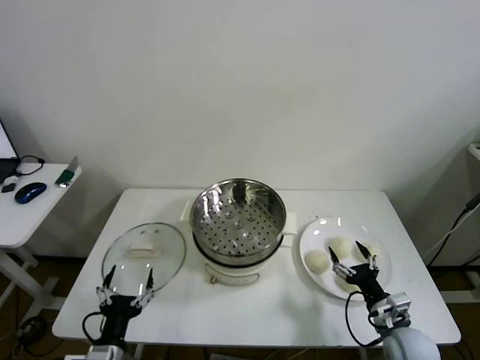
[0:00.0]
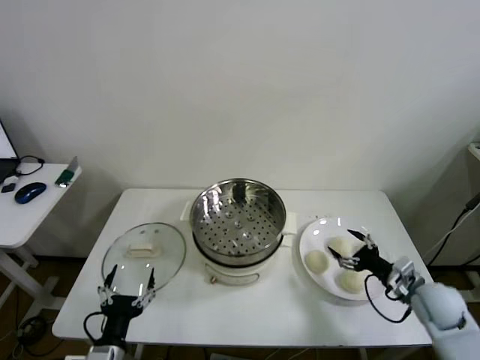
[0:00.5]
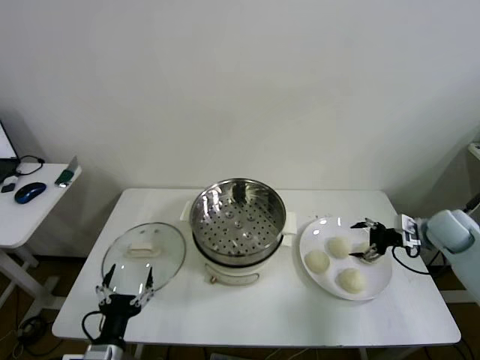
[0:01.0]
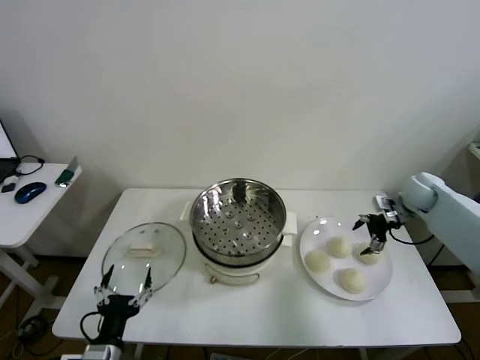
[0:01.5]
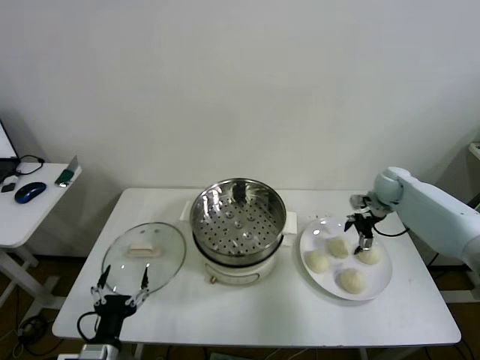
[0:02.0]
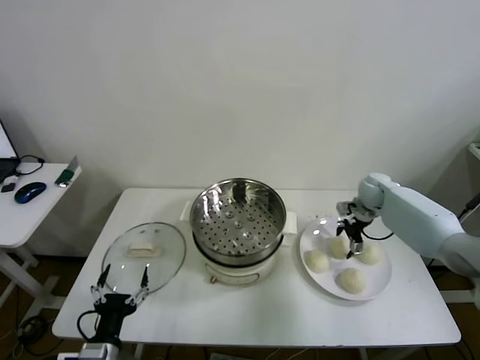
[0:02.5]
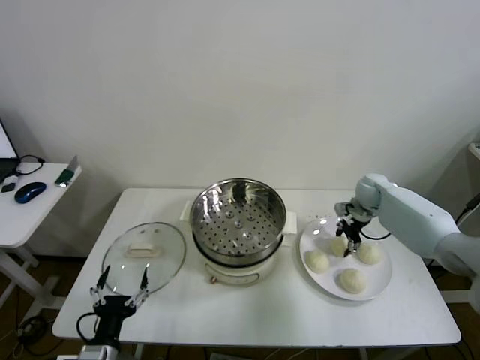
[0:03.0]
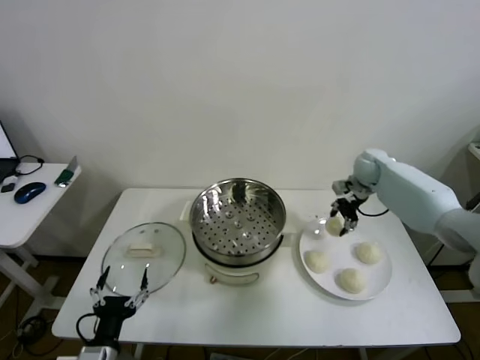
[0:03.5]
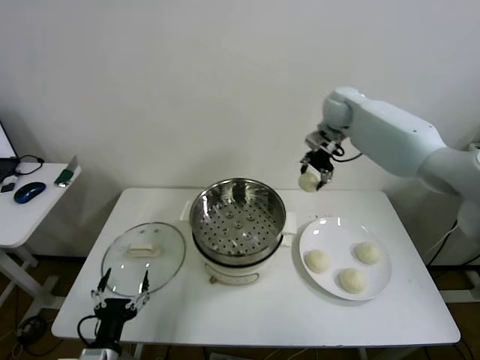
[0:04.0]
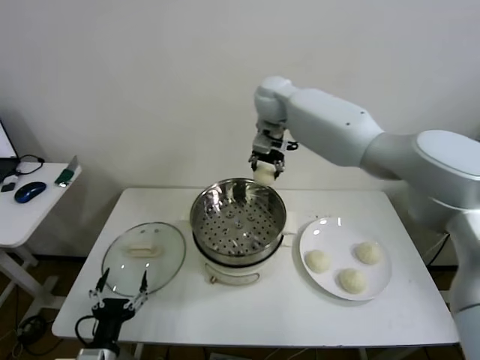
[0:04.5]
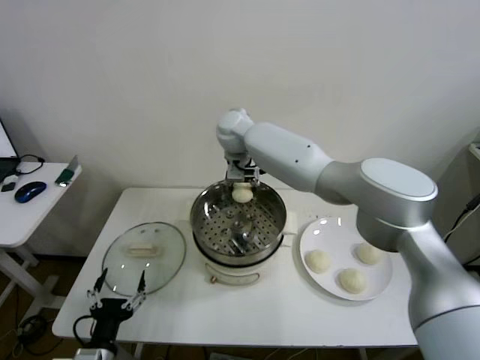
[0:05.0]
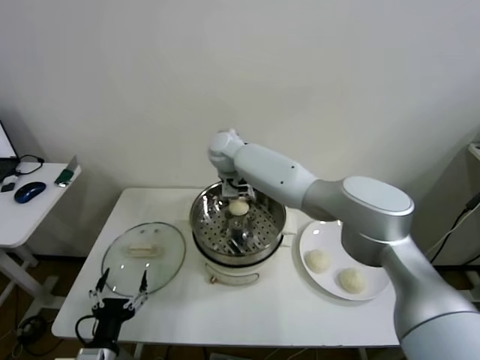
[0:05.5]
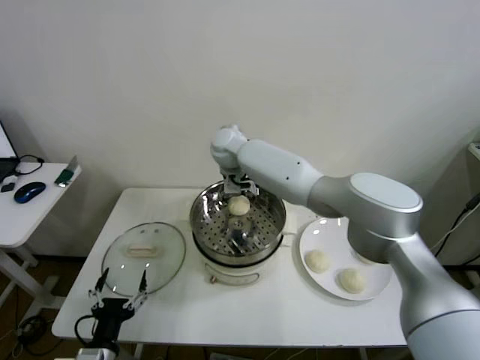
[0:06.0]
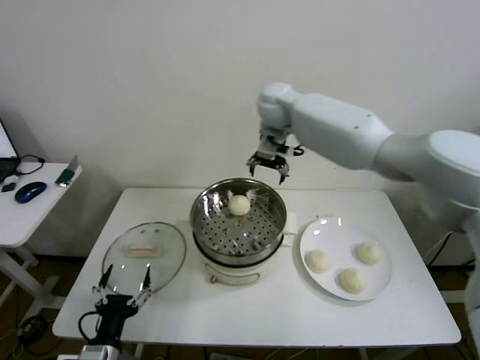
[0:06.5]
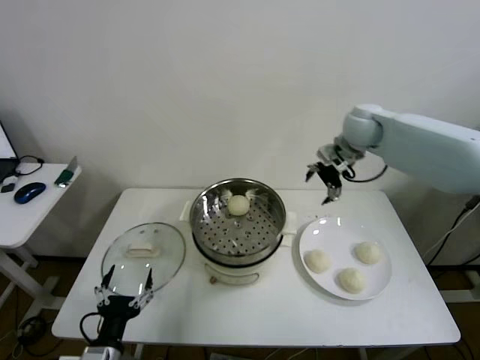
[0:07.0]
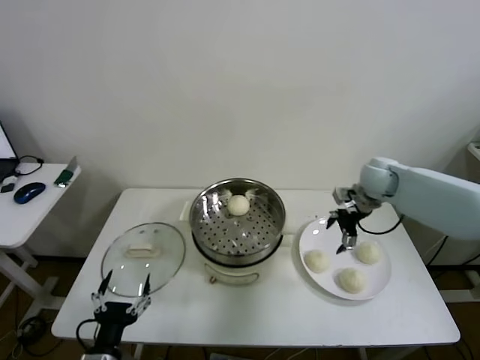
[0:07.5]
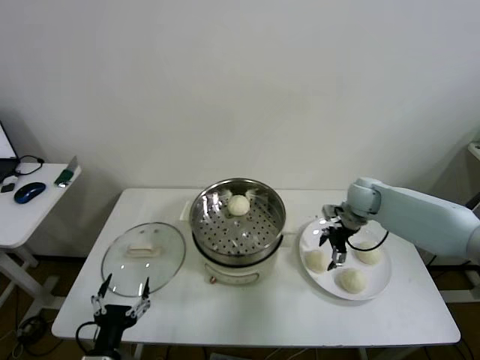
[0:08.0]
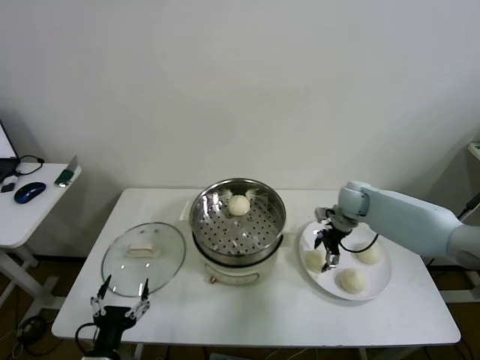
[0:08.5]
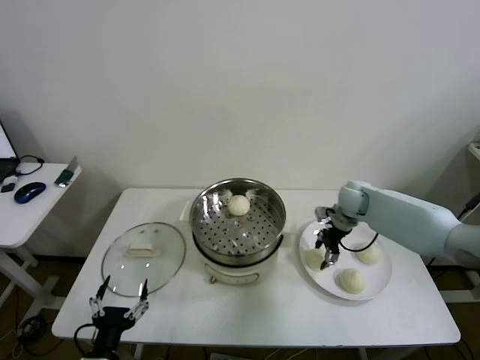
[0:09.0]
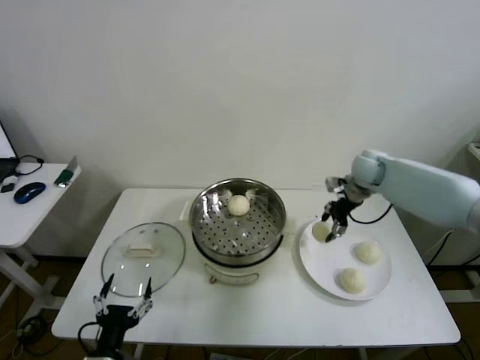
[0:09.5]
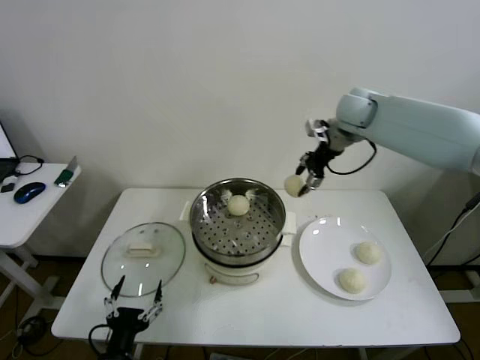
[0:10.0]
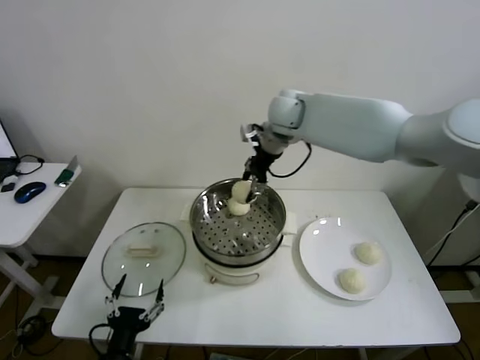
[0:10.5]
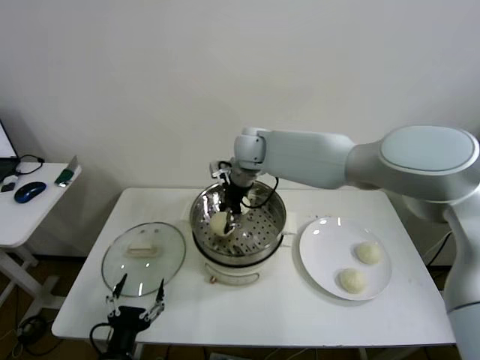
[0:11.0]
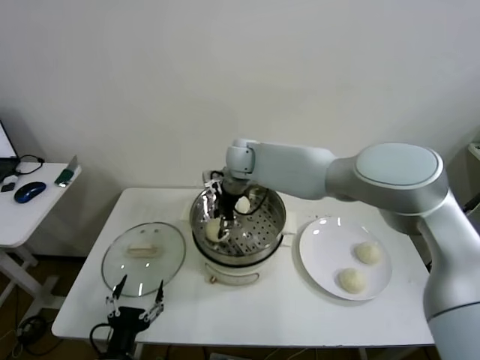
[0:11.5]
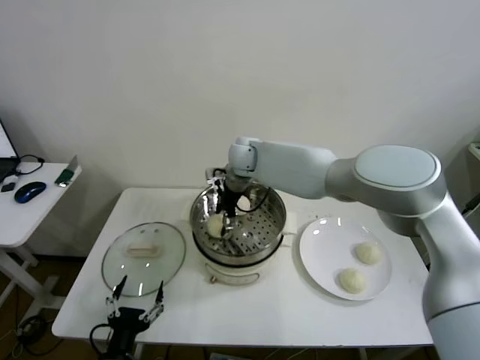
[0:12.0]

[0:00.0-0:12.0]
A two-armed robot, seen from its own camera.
Step, 0.0 to 3.0 s: Grasp the baozi in the plate with right gripper.
Step, 3.5 to 5.5 s: Place the baozi on the steamer with right gripper.
Step, 6.5 to 9.0 s: Grasp the baozi in the plate with right gripper.
2.0 to 4.0 s: The right gripper shifts some 30 cm upward and to the left, and closes.
4.0 to 6.0 s: The right gripper is displaced to the left by roughly 20 cm, and opens.
6.0 to 8.0 s: The right gripper goes about 35 cm to the right and downward.
8.0 to 10.0 s: The right gripper goes roughly 25 cm upward, and closes.
10.0 to 12.0 s: The right gripper shifts about 25 cm to the left and downward, and opens its fingers.

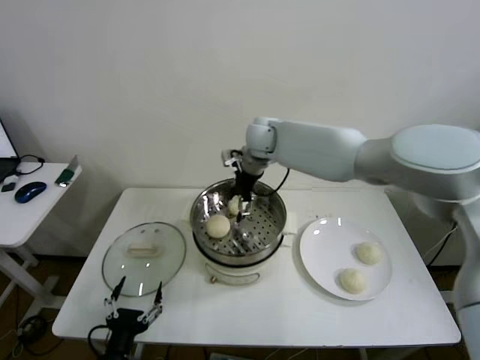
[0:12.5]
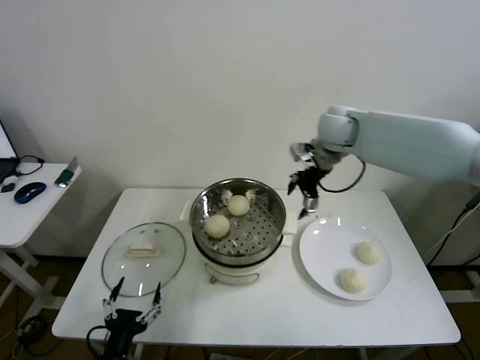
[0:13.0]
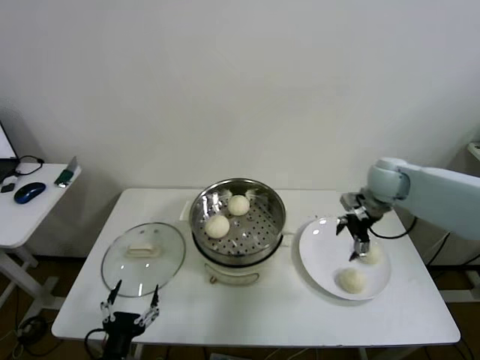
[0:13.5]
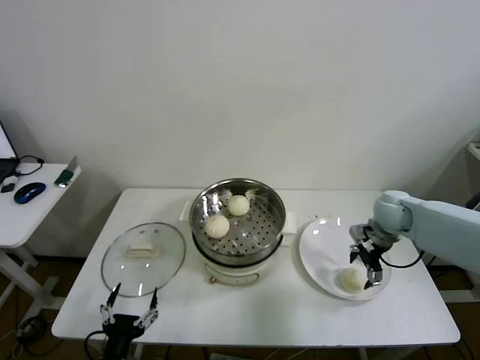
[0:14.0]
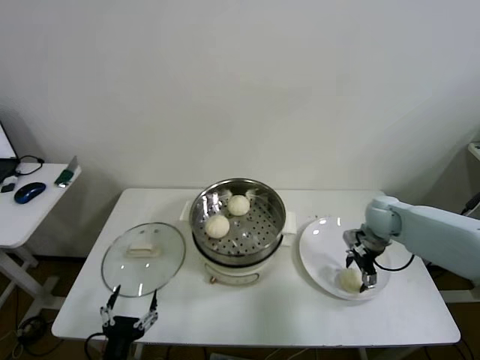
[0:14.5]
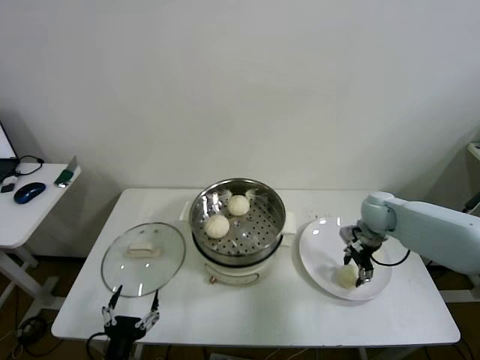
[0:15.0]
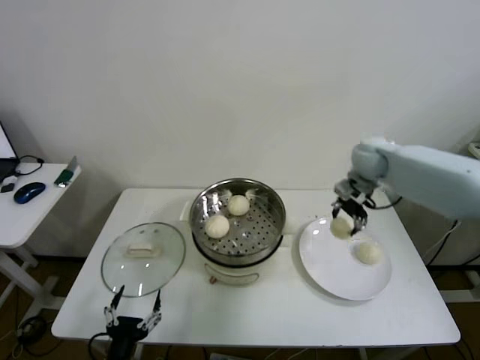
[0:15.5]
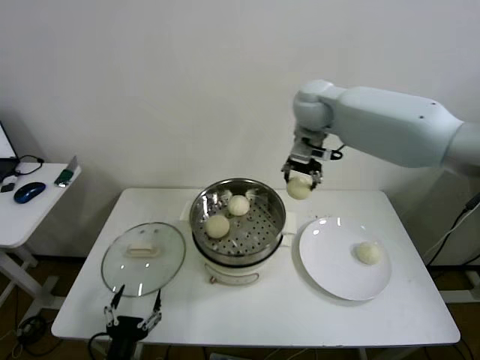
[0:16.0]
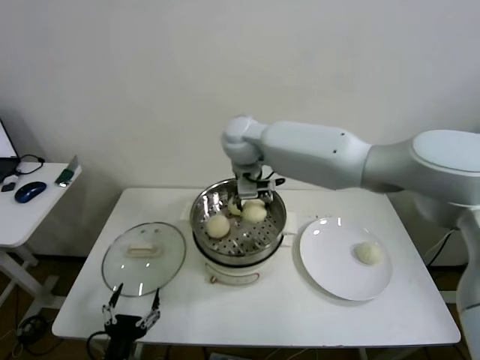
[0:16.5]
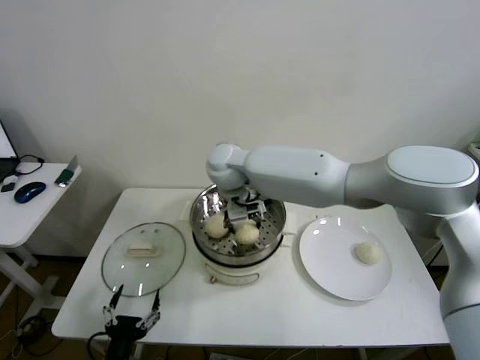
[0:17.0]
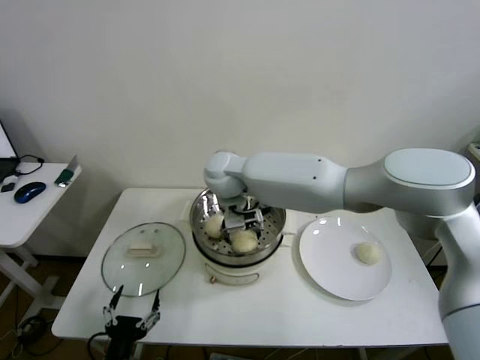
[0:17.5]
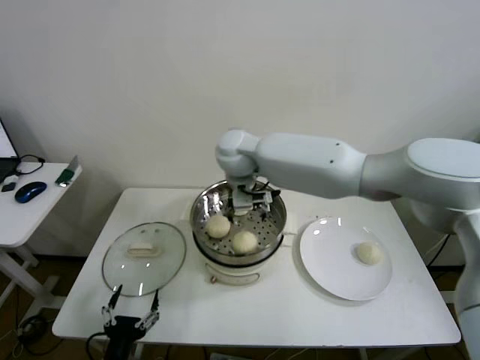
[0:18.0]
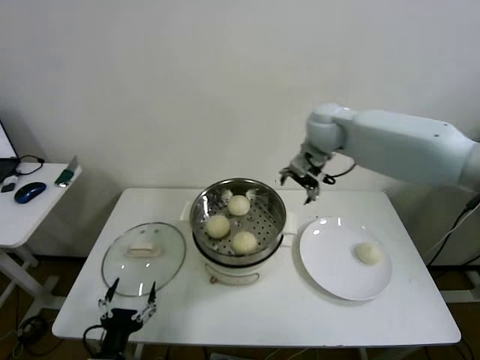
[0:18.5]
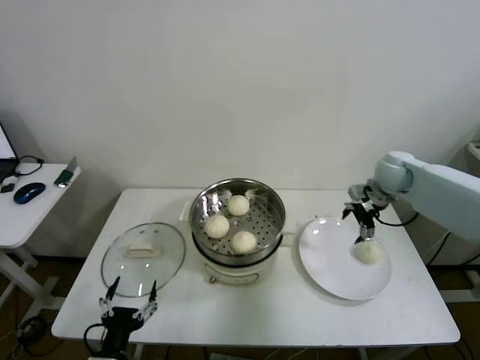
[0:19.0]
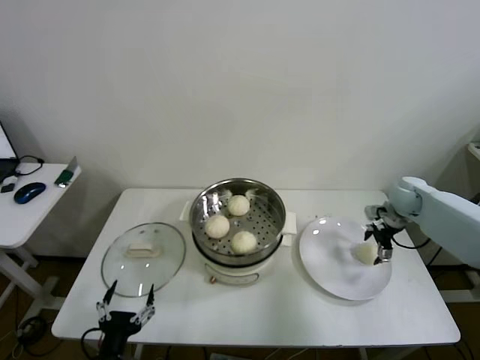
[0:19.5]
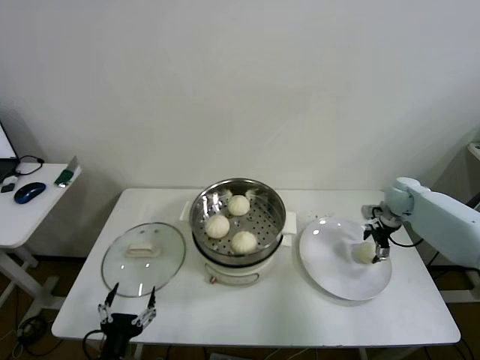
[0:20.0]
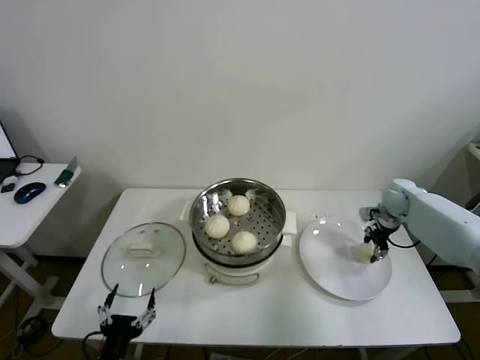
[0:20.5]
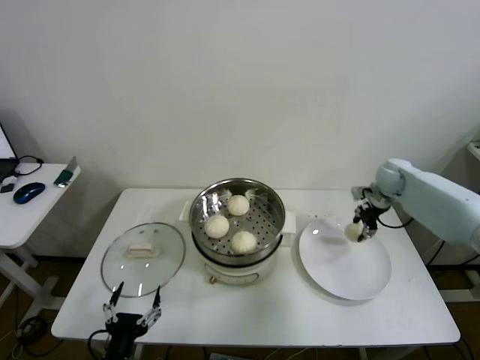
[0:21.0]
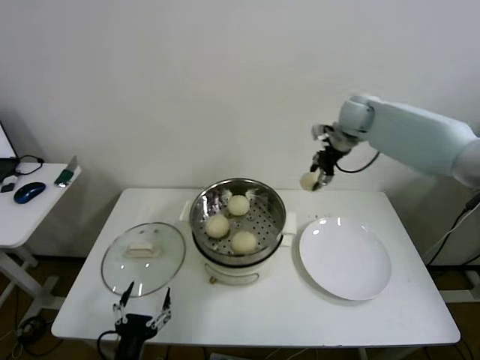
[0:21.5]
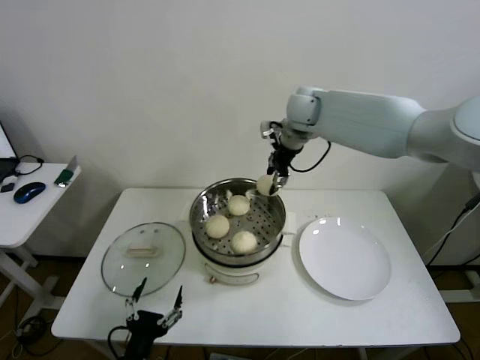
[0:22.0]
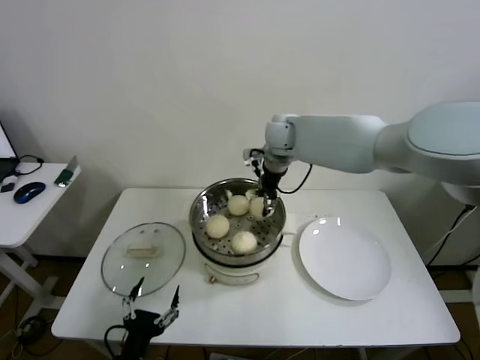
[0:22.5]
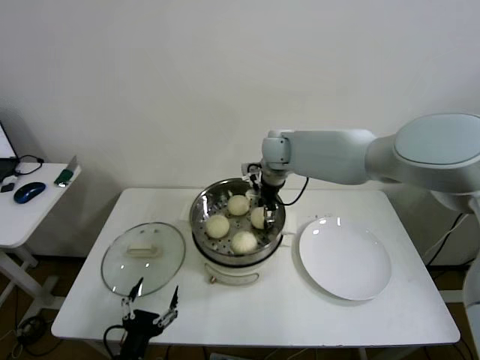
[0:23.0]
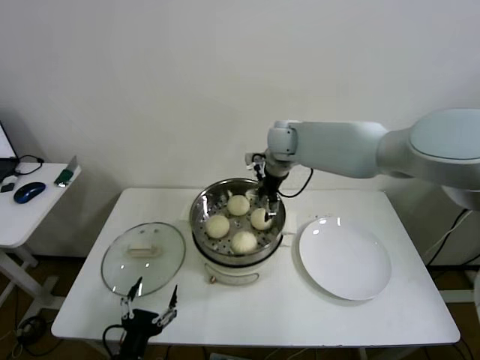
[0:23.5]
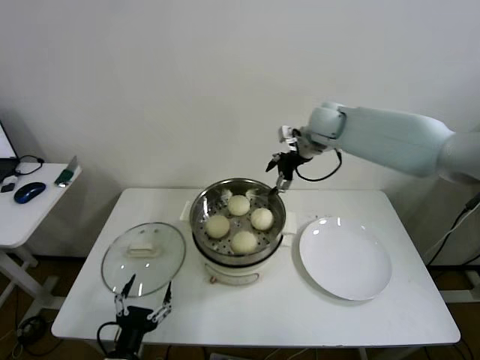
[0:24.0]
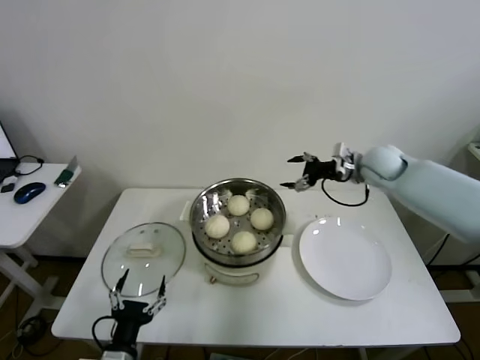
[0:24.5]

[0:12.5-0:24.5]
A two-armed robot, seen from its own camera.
Step, 12.5 to 14.5 s: Grasp the baozi in the plate with right gripper.
Step, 15.0 to 17.5 s: Place the baozi on the steamer with right gripper.
Step, 18.0 to 20.5 s: Grasp the baozi in the plate with right gripper.
Step, 21.0 to 23.0 s: Place the baozi on the steamer with right gripper.
12.5 to 14.5 s: The right gripper moves to the right and downward, roughly 35 cm.
14.5 to 16.5 s: The right gripper heads to the left and upward, covering approximately 40 cm, and closes up.
16.5 to 18.5 s: The right gripper travels to the right by approximately 20 cm, and opens up.
18.5 to 20.5 s: The right gripper goes roughly 30 cm to the right and downward, and closes its fingers.
20.5 to 22.5 s: The right gripper is displaced to the left and upward by some 40 cm.
22.5 to 24.5 s: The right gripper shifts about 25 cm to the right, and opens up.

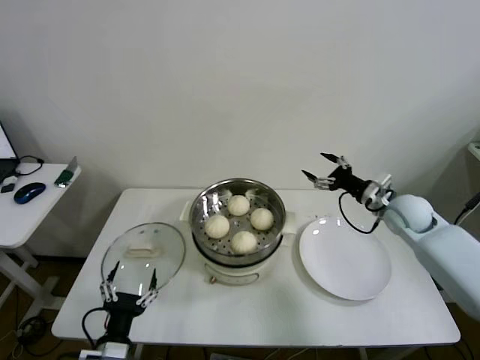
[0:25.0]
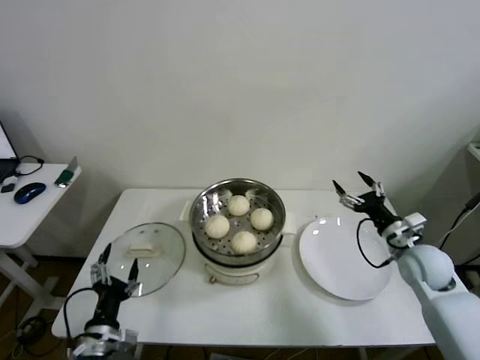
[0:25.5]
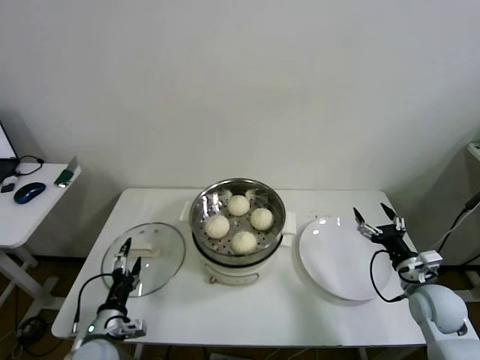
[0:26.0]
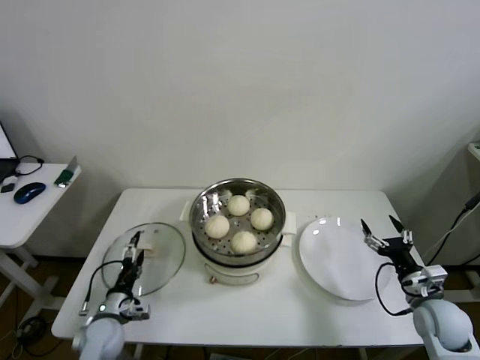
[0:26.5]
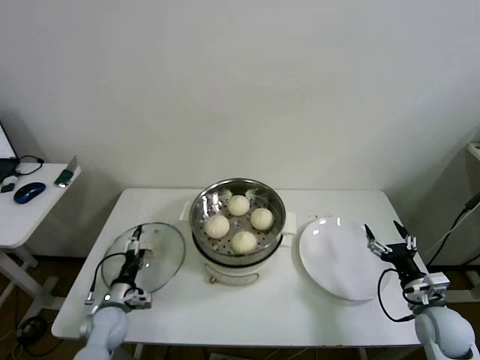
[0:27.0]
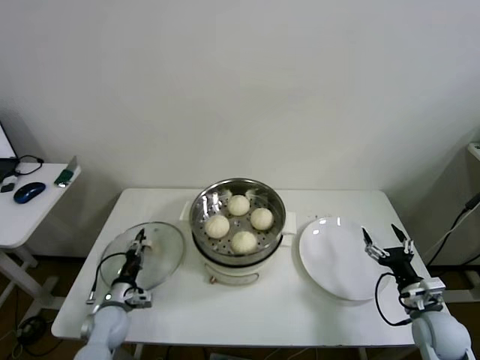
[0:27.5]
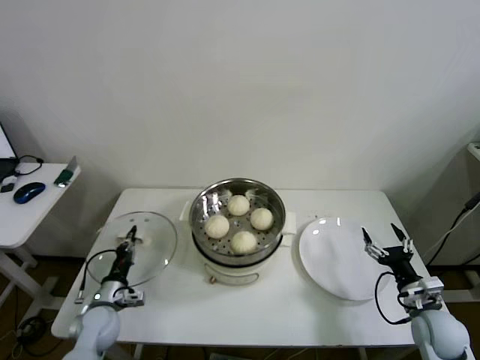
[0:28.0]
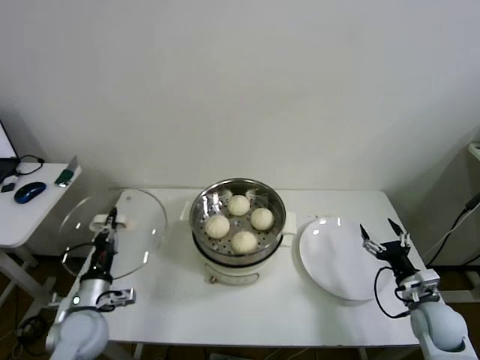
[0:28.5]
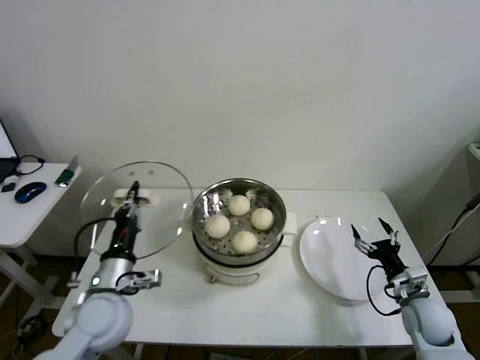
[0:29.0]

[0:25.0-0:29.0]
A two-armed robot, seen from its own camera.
Step, 25.0 to 27.5 s: Grasp the pot lid with left gripper.
25.0 to 27.0 s: The right gripper goes approximately 25 cm backward and downward. The left gripper is displaced forward, downward and to the left by roughly 20 cm.
27.0 to 29.0 s: The left gripper moves upward, approximately 20 cm, and closes.
